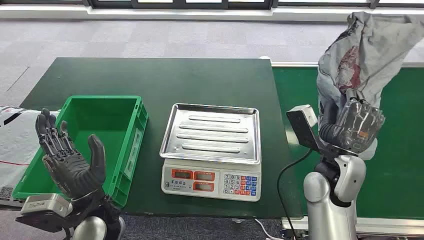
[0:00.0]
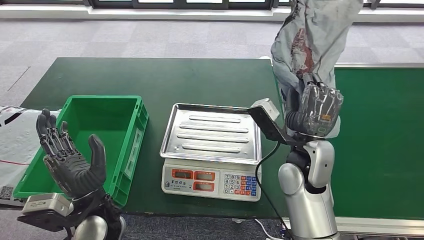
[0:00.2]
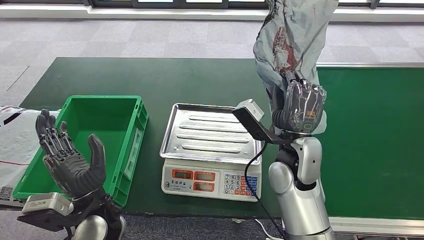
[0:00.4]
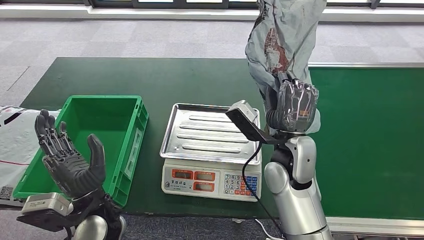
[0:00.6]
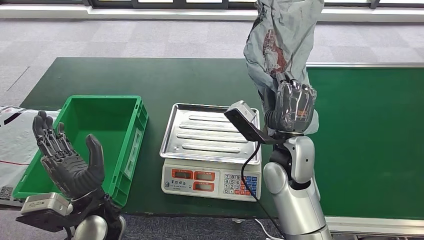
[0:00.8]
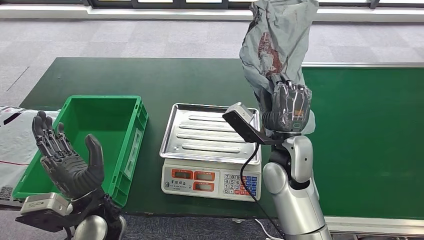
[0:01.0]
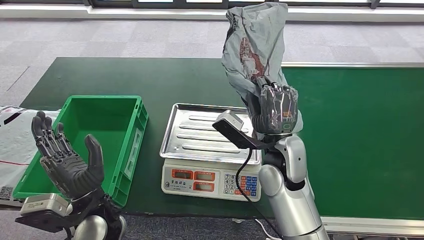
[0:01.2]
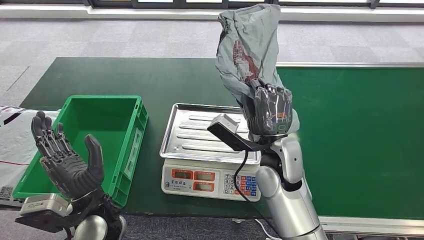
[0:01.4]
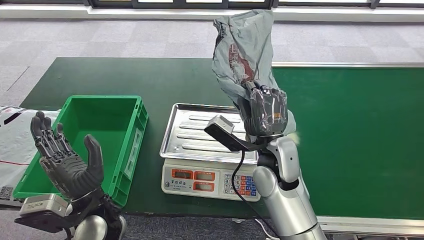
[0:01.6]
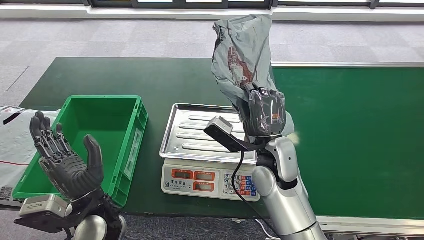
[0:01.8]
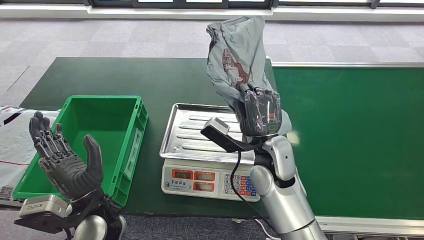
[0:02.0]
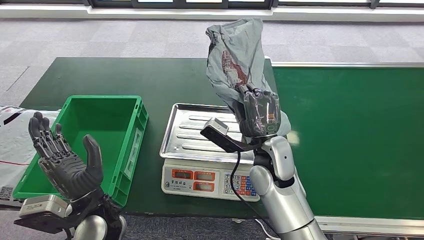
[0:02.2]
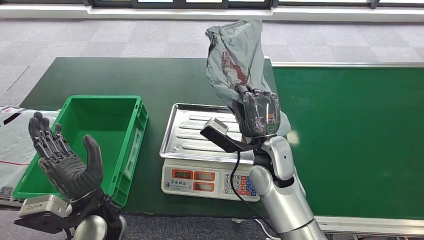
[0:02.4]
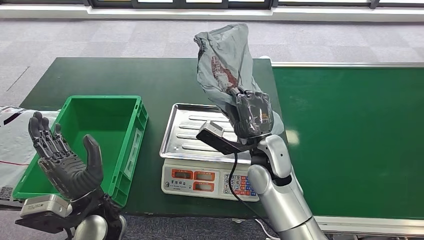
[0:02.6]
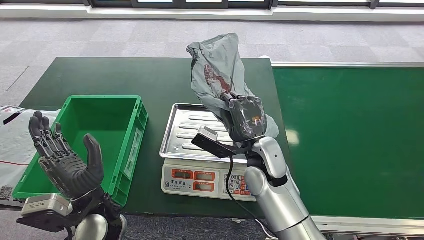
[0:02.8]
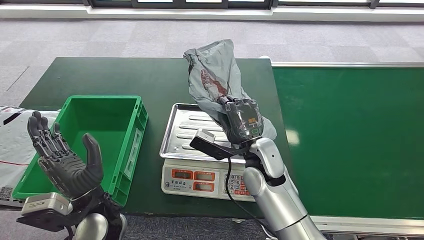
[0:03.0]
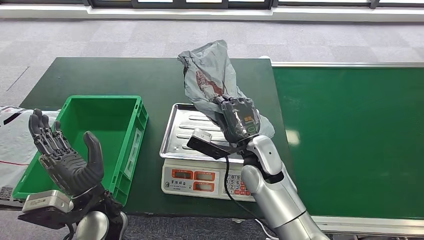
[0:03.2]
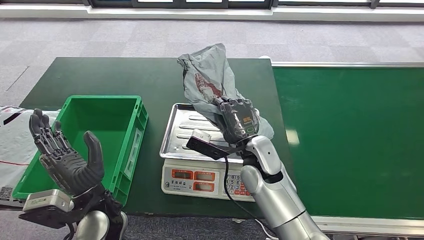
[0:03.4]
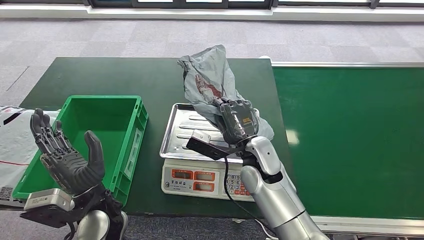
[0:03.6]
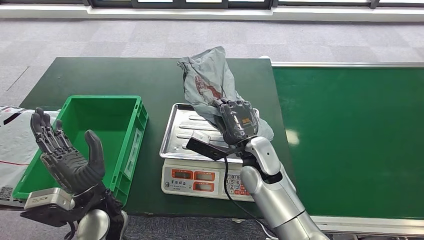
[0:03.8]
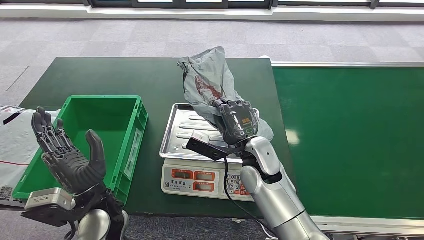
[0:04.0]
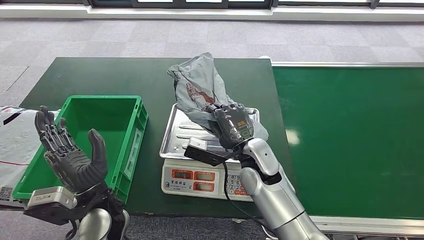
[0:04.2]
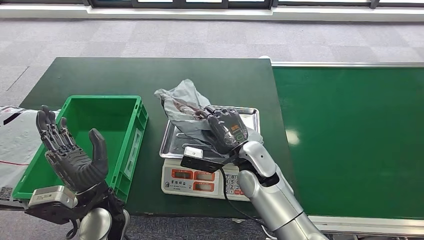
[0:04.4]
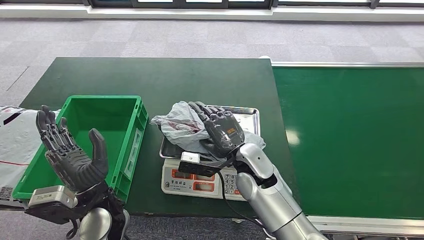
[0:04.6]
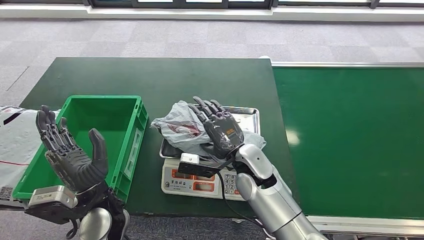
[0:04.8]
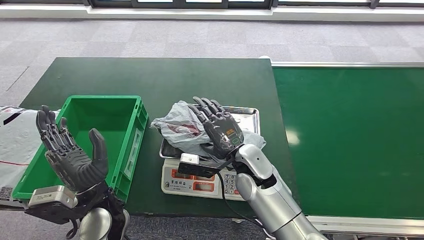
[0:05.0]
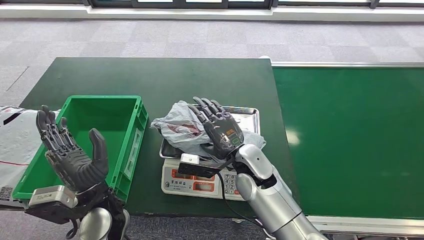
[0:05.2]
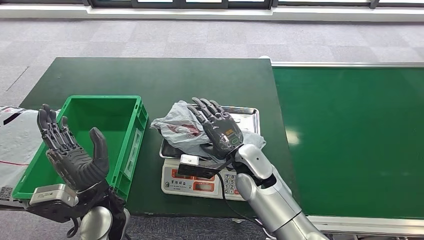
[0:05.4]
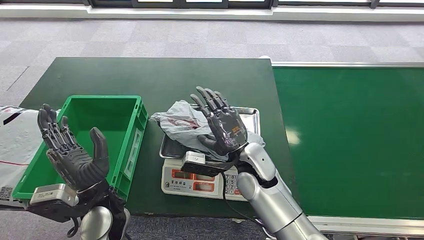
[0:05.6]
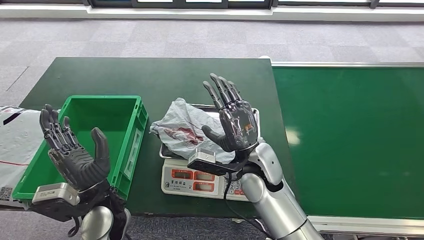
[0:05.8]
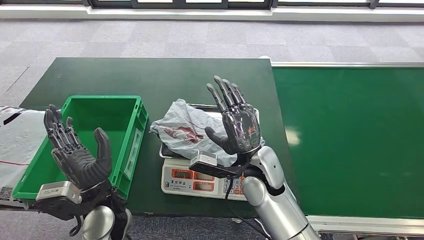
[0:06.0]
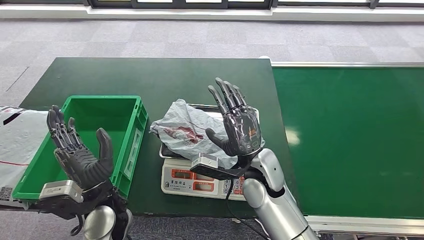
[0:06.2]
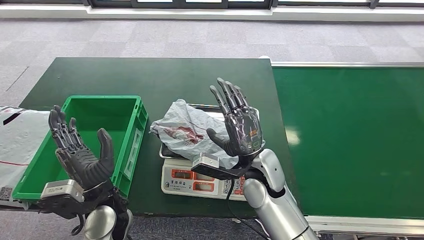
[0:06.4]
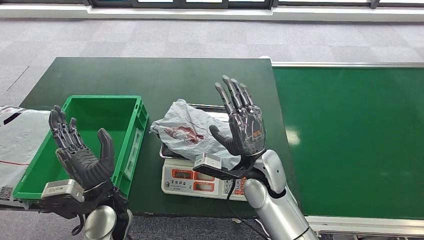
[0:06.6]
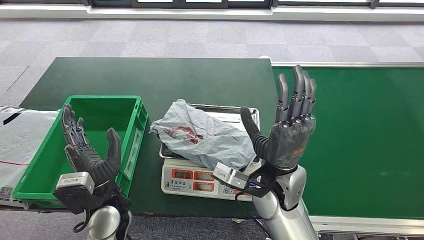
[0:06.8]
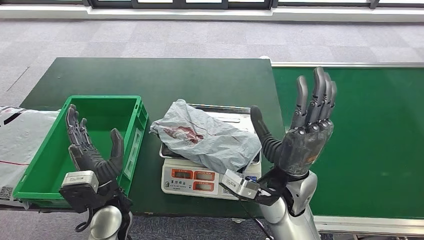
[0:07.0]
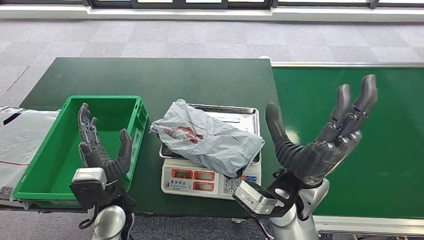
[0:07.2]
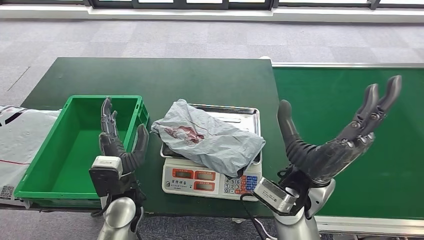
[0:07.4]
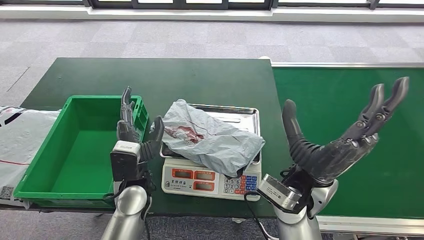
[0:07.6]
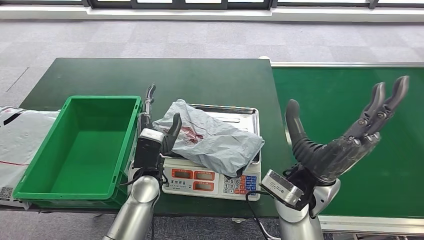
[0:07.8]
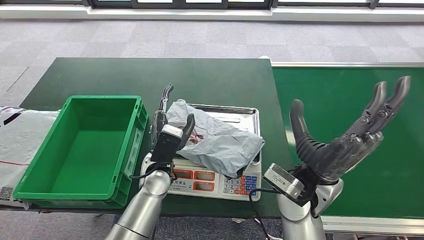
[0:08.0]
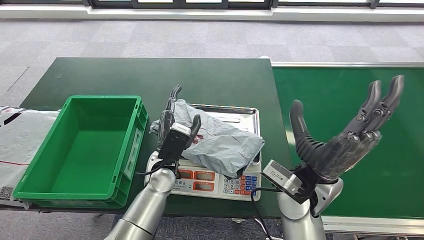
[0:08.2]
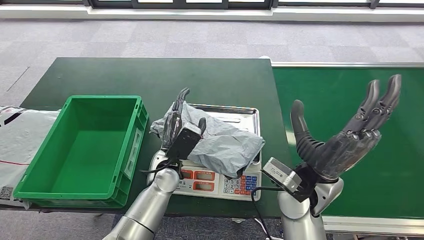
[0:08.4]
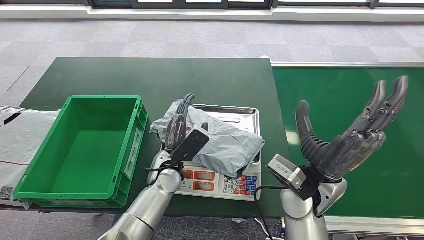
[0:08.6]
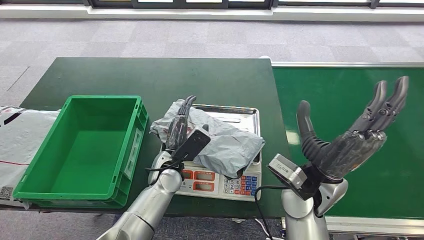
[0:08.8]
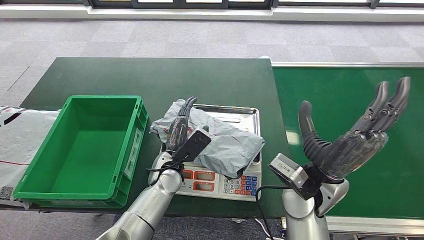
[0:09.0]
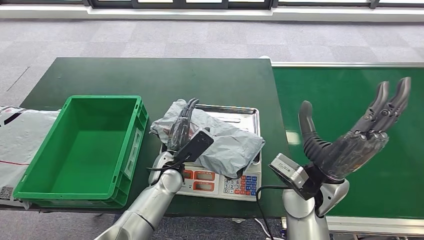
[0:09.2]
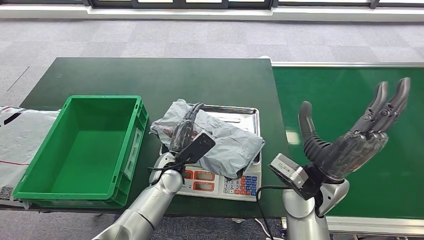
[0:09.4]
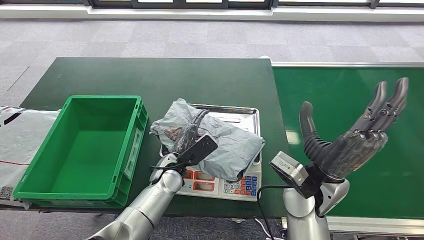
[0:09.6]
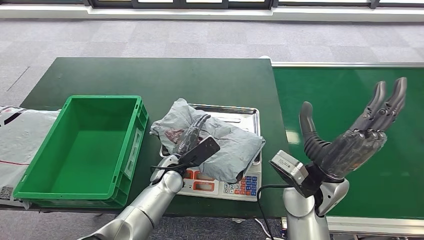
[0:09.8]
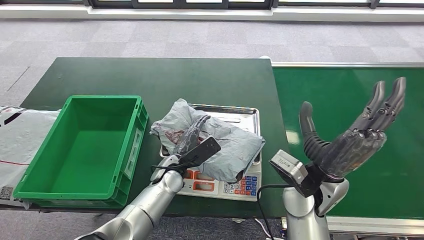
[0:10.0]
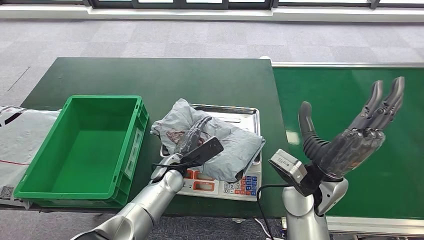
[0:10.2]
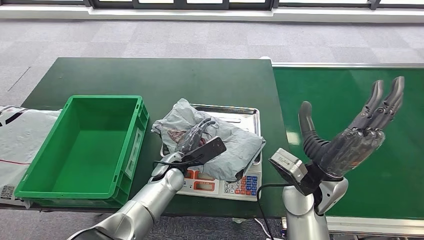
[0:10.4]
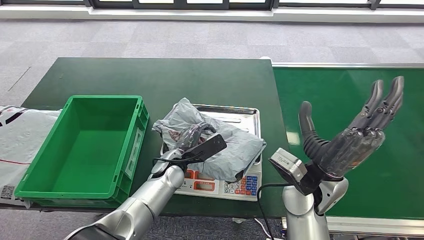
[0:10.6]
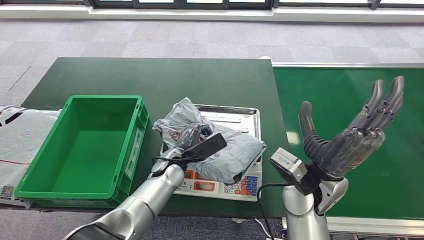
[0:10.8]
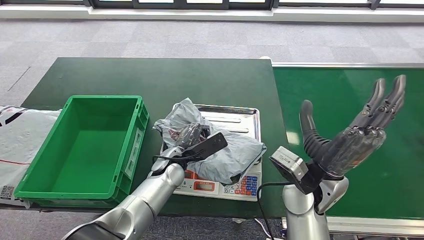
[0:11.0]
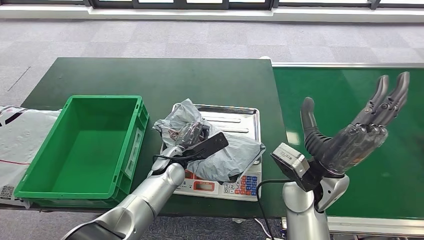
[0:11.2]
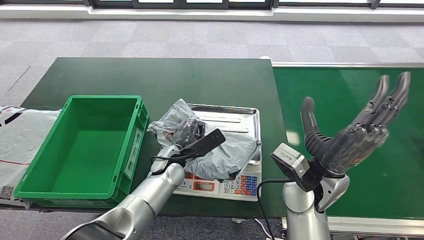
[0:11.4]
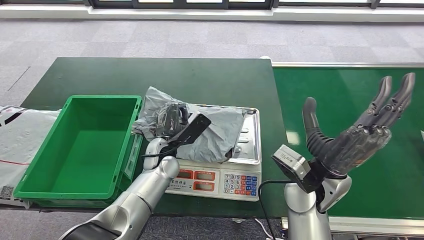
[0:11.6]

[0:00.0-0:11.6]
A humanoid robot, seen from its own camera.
Step, 0:00.0 to 0:01.0: Take the parcel off the conveyor belt.
Step, 0:01.2 to 0:06.2: Place the parcel onto the inbound machine.
0:01.4 to 0:02.8: The hands make only small movements.
0:02.8 to 0:05.8: There are only small adjustments of the hands.
0:05.8 to 0:07.2: The right hand is displaced upward and backward by about 10 cm.
0:07.2 to 0:08.8: The left hand shifts approximately 10 cm forward and to the right.
0:10.2 to 0:11.6: The left hand shifts by roughly 5 cm.

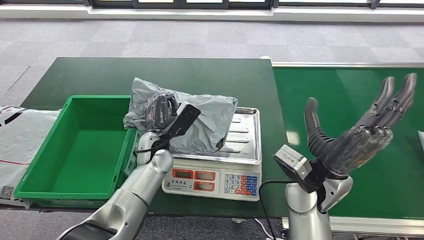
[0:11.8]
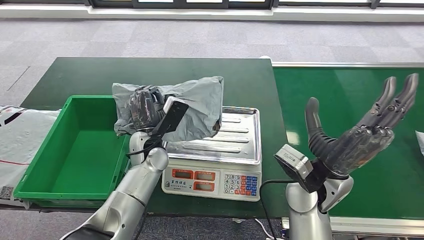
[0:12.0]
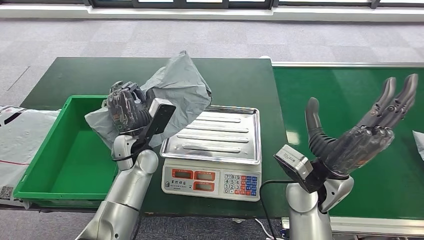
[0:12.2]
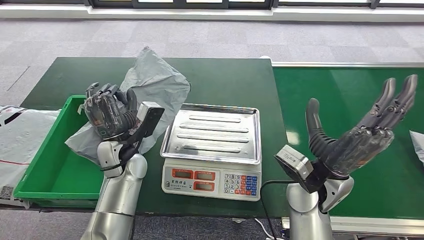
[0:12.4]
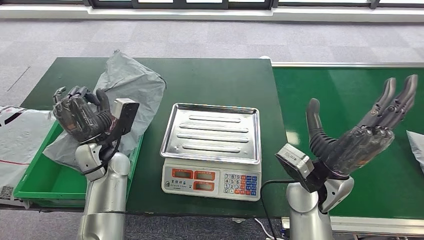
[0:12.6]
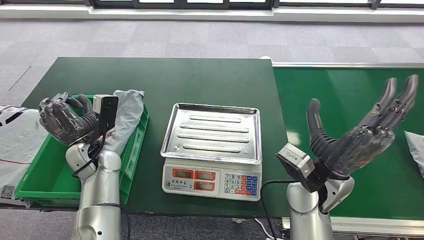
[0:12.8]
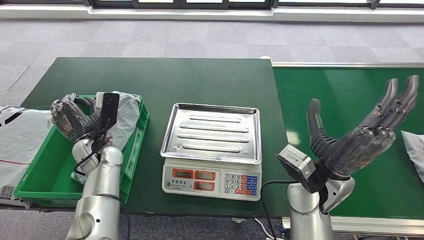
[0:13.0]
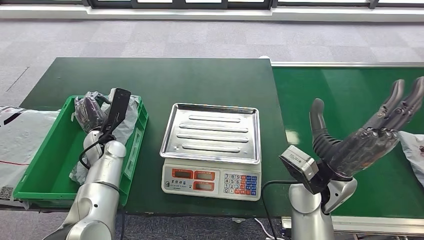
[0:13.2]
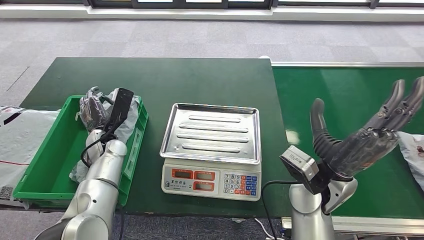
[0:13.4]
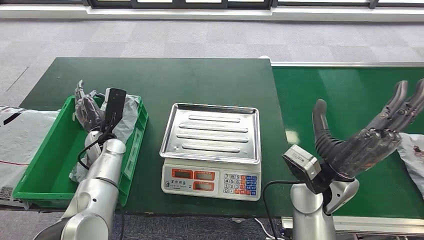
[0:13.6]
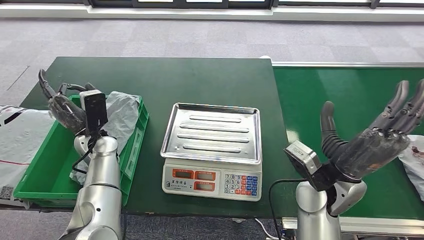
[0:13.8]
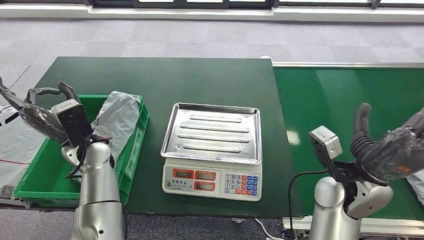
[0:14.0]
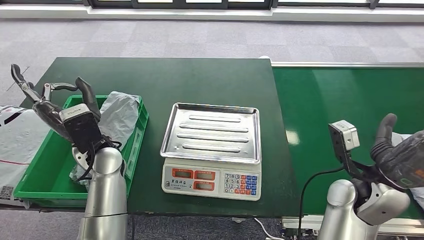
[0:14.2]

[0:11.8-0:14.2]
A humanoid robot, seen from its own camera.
Step, 0:12.2 to 0:14.2: Put the parcel inside the courier box.
0:11.8 to 0:13.0: The left hand is displaced to the left by roughly 15 cm.
0:13.0 to 0:14.2: The right hand moves to the right, about 10 cm; the left hand goes some 5 cm upward.
